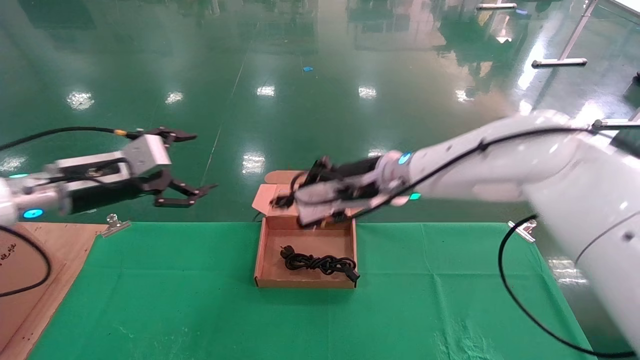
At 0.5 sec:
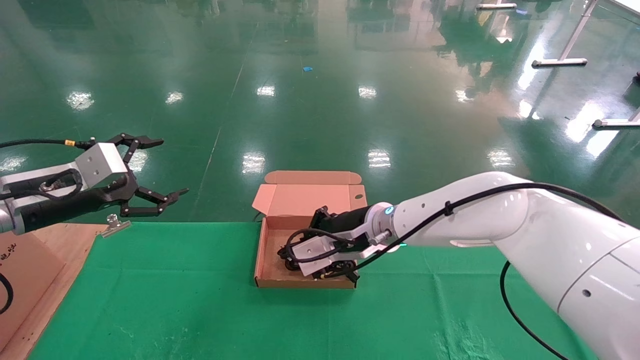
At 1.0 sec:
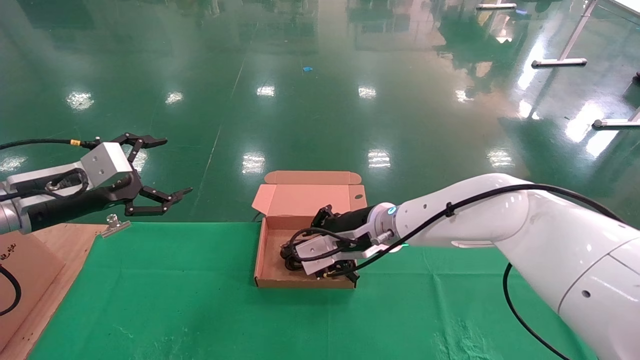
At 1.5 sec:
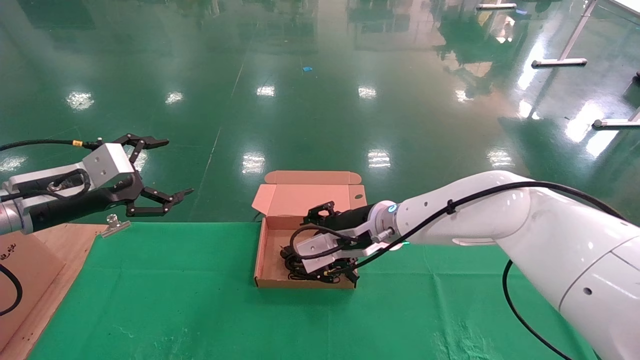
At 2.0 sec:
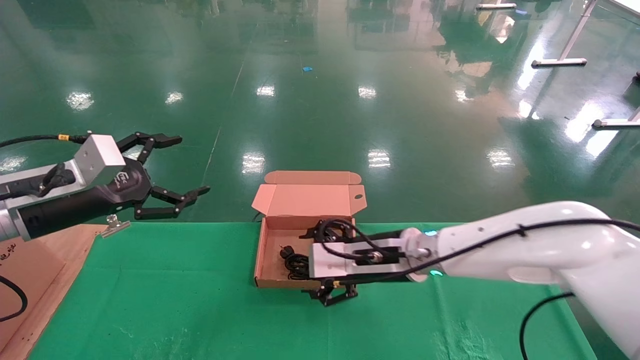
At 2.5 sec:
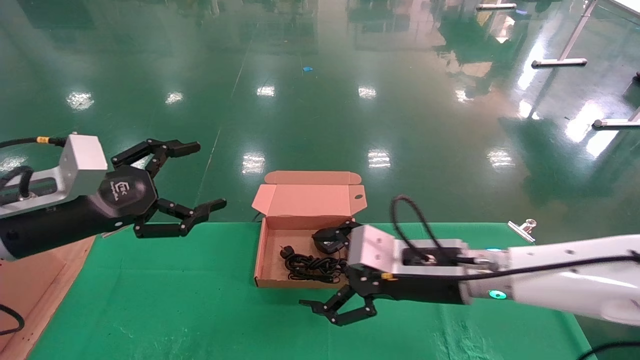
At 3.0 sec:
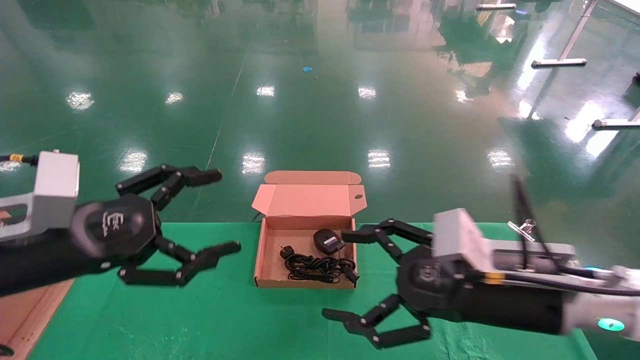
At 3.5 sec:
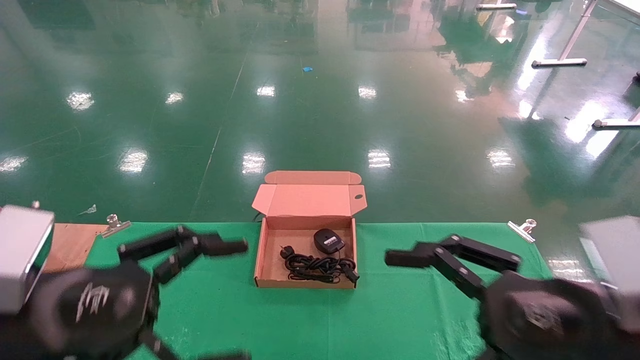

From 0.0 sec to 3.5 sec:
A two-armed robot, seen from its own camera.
From 0.0 sec to 2.0 sec: The left gripper shifts by about 5 cm. Meanwhile the right gripper moves downward, approximately 10 cm, and opens up.
From 2.0 sec to 3.5 sec: The grippers both shift backward and to the right by some 20 cm.
